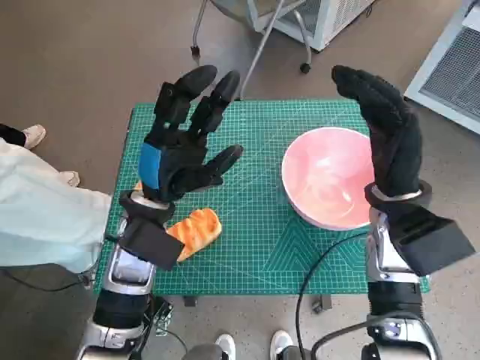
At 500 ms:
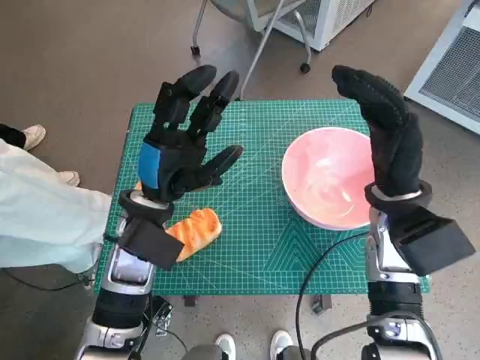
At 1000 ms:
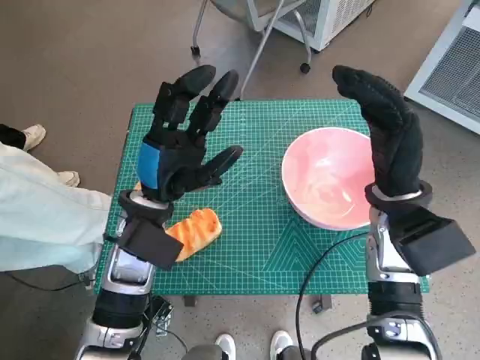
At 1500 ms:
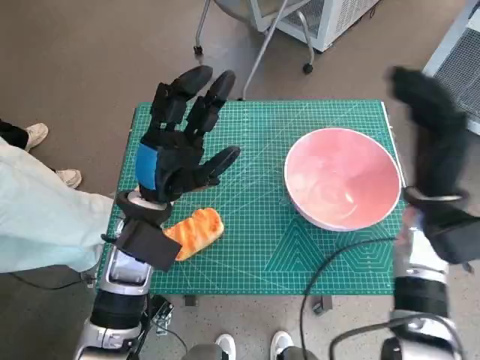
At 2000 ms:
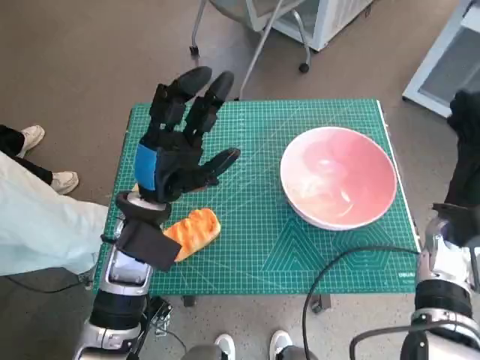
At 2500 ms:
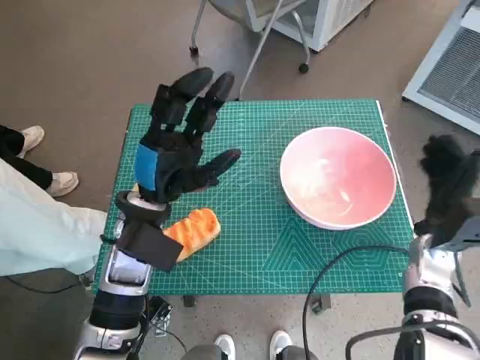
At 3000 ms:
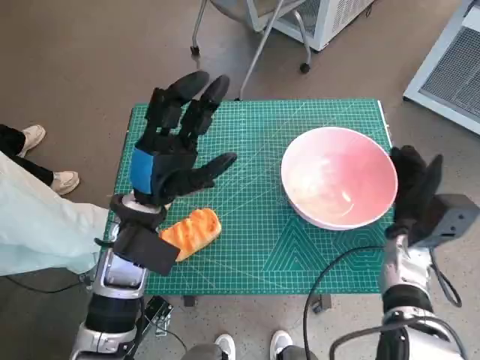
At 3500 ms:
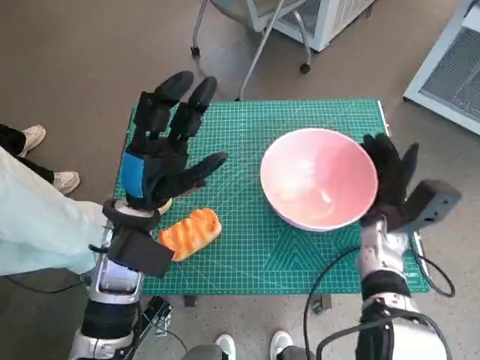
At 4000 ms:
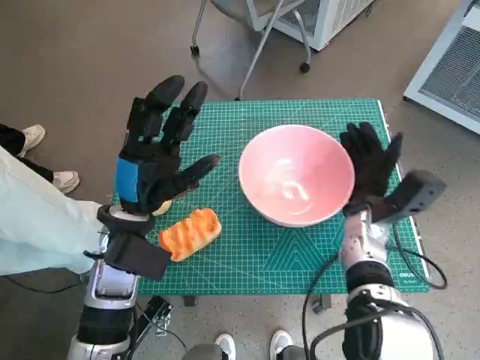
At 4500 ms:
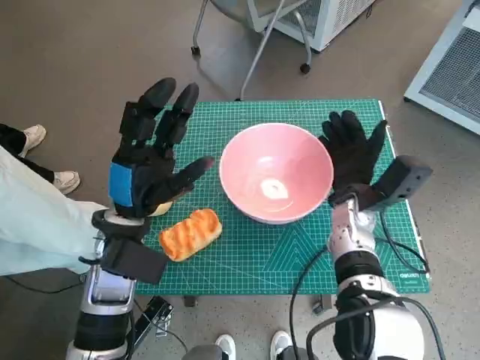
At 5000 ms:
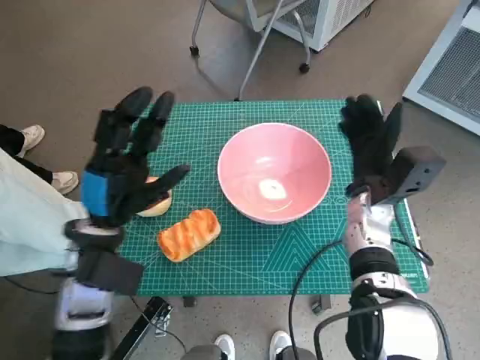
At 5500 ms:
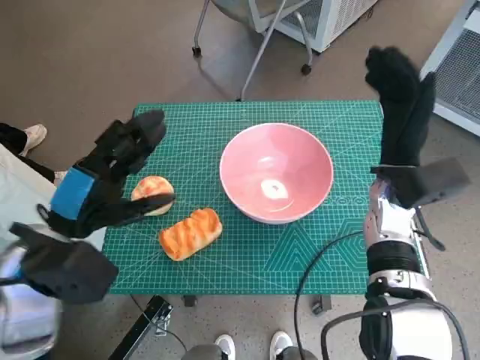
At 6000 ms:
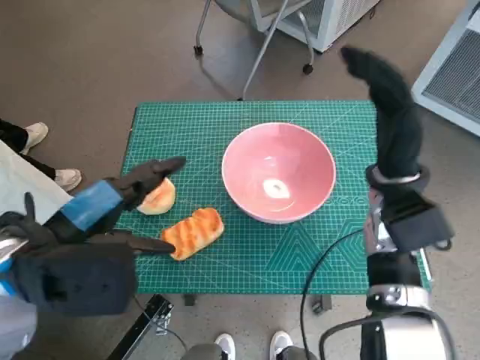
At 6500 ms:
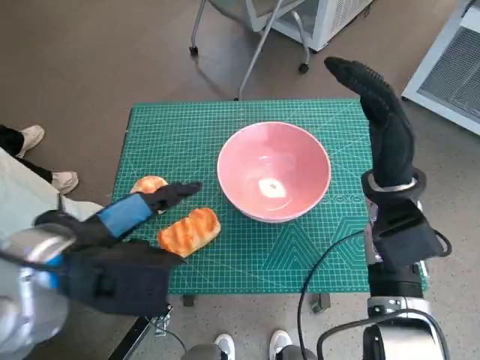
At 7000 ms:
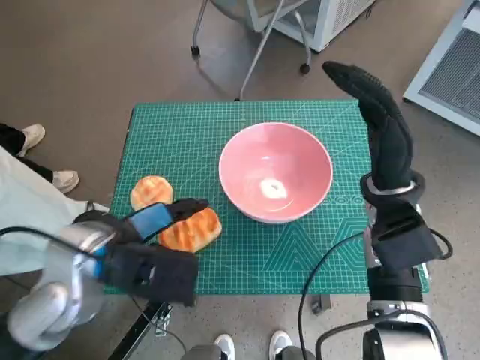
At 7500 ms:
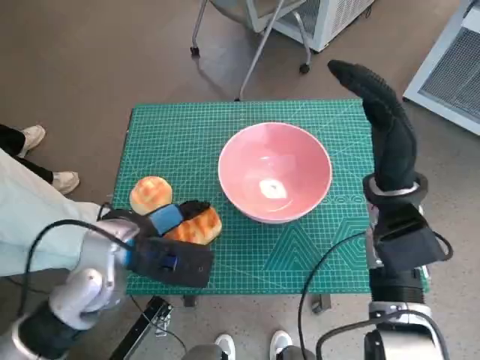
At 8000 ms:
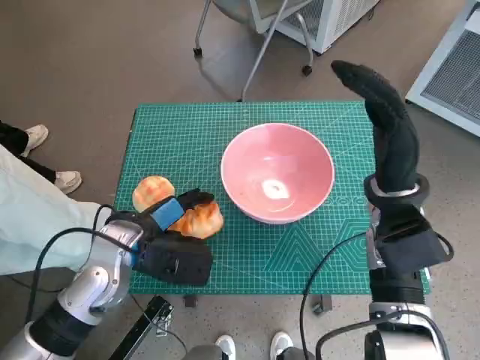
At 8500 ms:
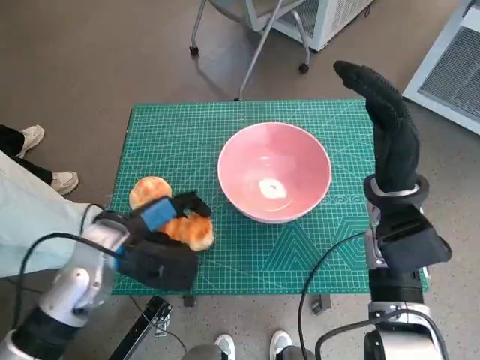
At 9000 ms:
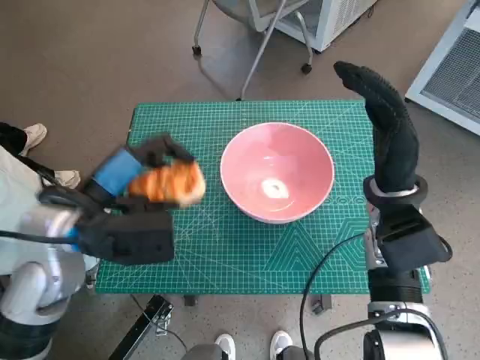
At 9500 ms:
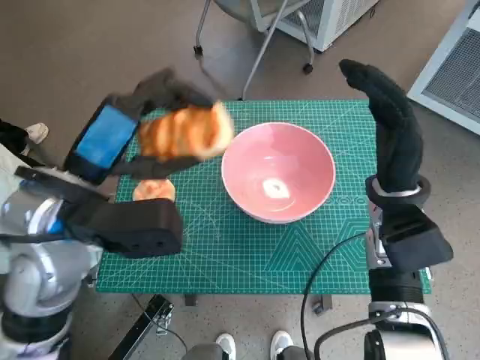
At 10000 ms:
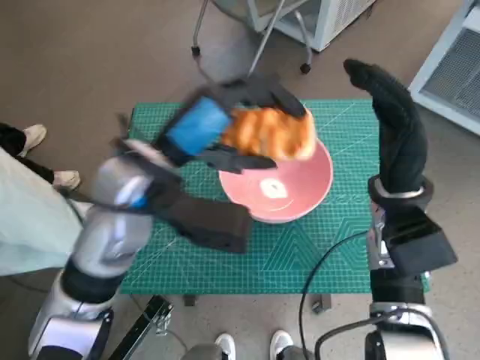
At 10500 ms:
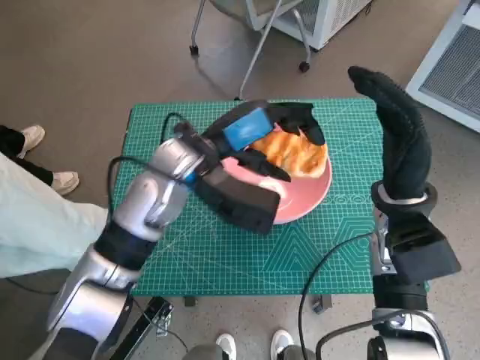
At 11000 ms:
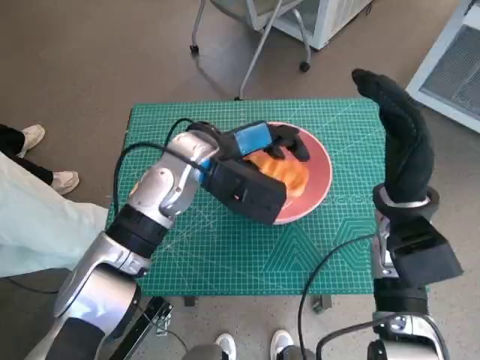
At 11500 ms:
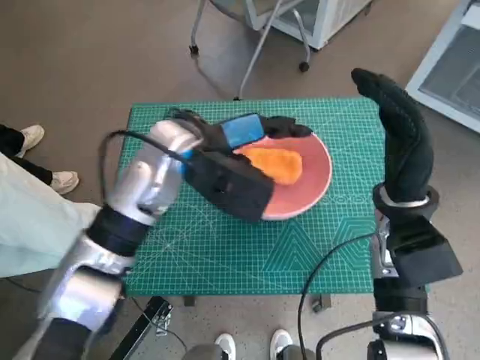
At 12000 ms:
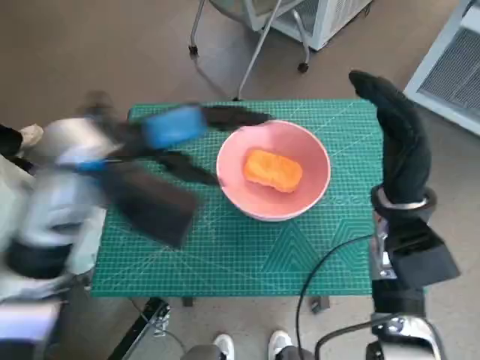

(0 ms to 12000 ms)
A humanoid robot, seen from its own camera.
Task of the whole recording: Push the bowl to the center of the table and put the bread into the bowl.
Step, 0 ms - 4500 ms: Move the pink bowl to the center of table with right hand.
Step, 5000 ms - 7500 ms: Grasp the long bread with left hand.
Step, 8000 ms - 11000 ms: Place the long bread in pink bowl with left hand.
2000 ms - 4000 ms: The right hand heads to the left and downward, covering about 10 cm.
4000 ms - 6000 ms: The right hand moves upward, about 10 cm; the left hand moves upward and backward, about 10 cm.
6000 ms - 8000 ms: The left hand shifts about 15 cm downward and forward.
8000 ms - 10000 ms: The left hand moves upward and to the right, approximately 15 cm.
10000 ms - 12000 ms: The left hand travels forward and back again, approximately 10 cm each way.

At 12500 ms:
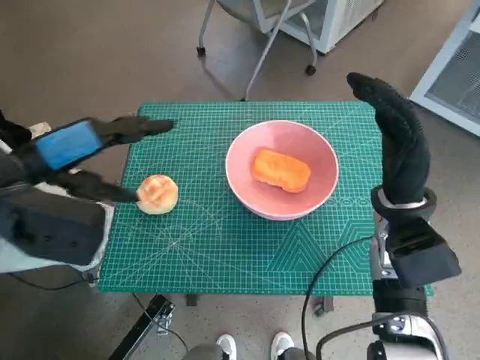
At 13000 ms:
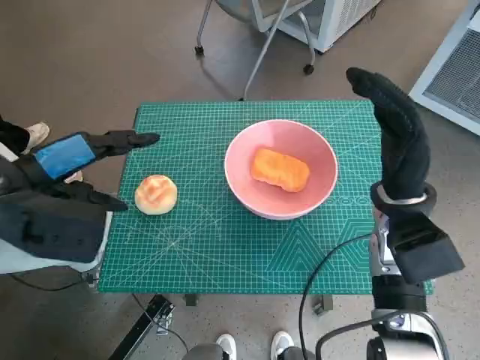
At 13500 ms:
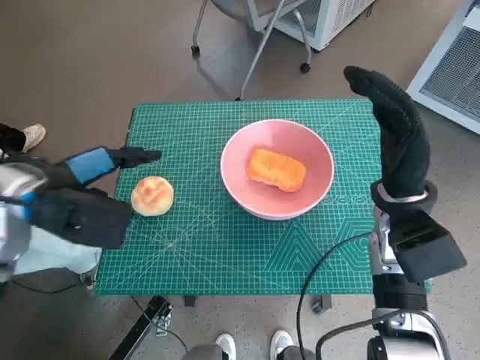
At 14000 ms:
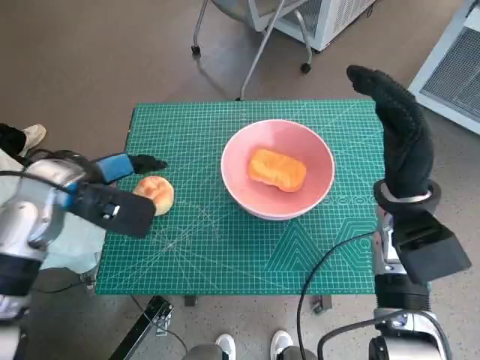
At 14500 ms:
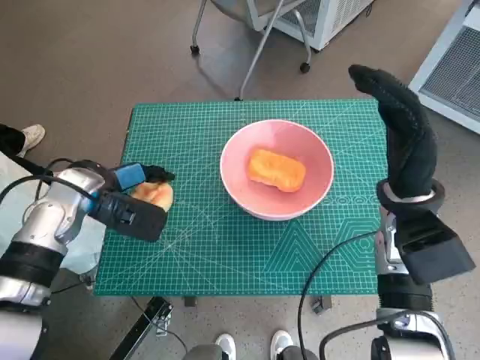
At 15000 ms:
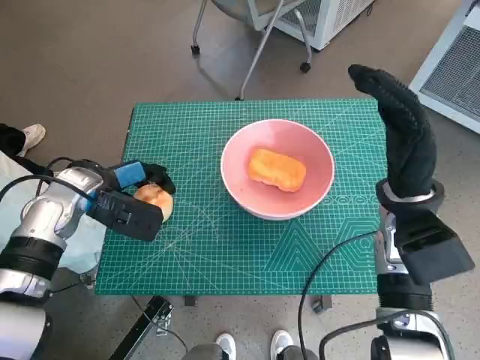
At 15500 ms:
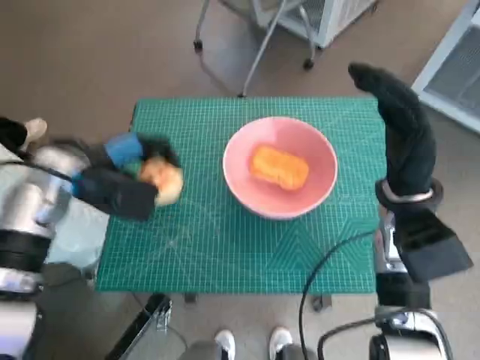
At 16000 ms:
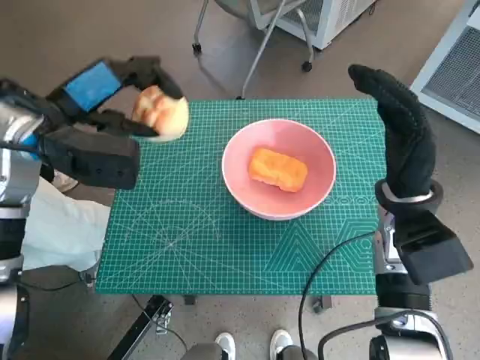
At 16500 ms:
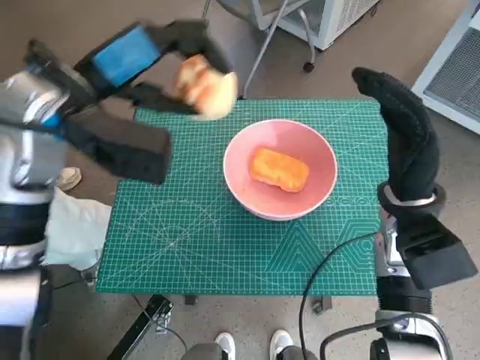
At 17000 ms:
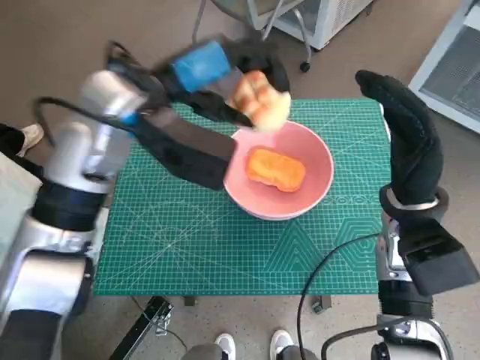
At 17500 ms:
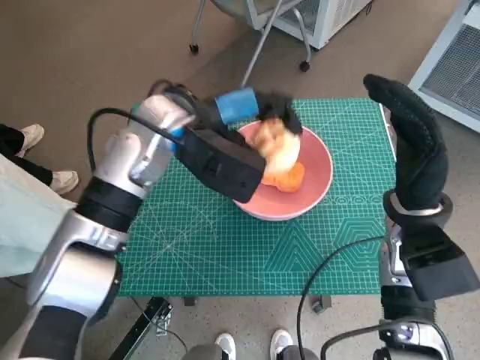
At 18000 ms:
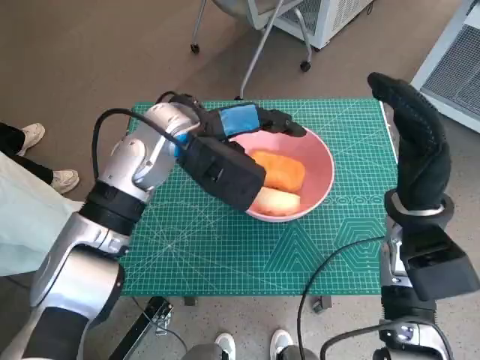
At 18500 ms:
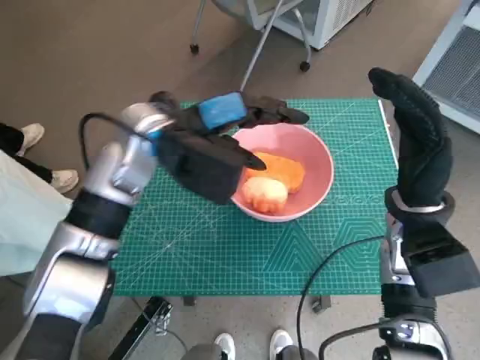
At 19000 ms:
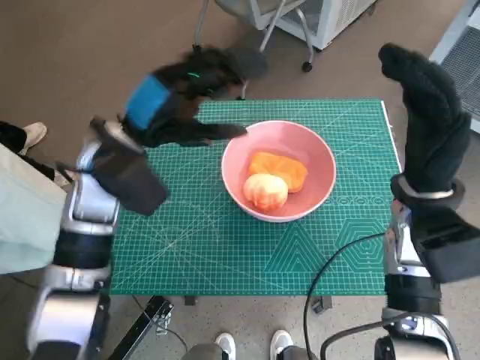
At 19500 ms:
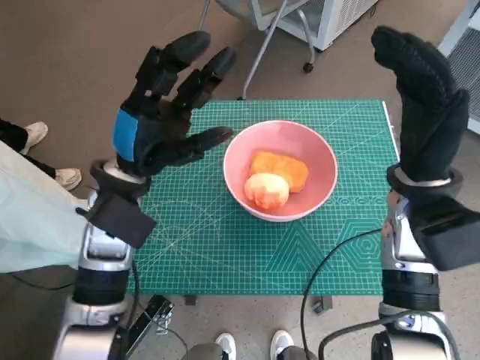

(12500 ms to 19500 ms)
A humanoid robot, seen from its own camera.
Task of the whole recording: Push the bowl to the center of the table and put the bread into the bowl.
Step, 12500 ms - 15000 ms: Grasp the round bread with left hand.
Step, 15500 ms - 18000 ms: Place the round bread in pink bowl with left hand.
12500 ms - 14500 ms: The left hand shifts some 15 cm downward and forward.
14500 ms - 16000 ms: The left hand is displaced upward by roughly 10 cm.
16000 ms - 17500 ms: The left hand shifts about 15 cm to the right.
17500 ms - 19500 ms: The left hand is displaced to the left, backward and downward by approximately 10 cm.

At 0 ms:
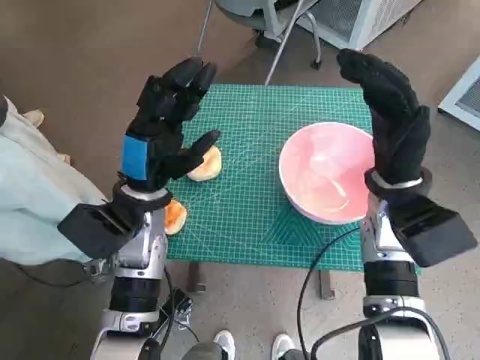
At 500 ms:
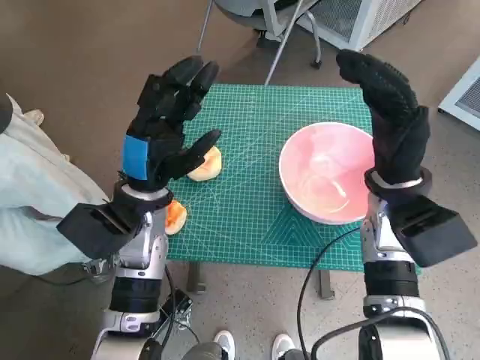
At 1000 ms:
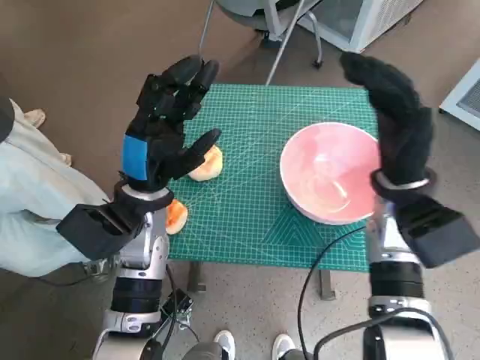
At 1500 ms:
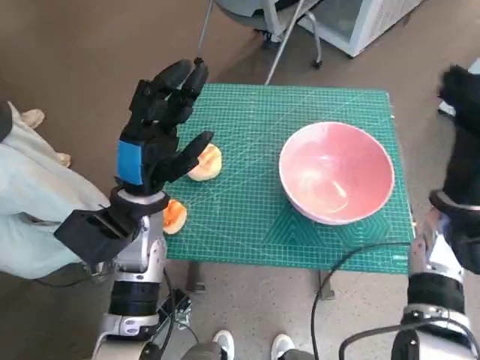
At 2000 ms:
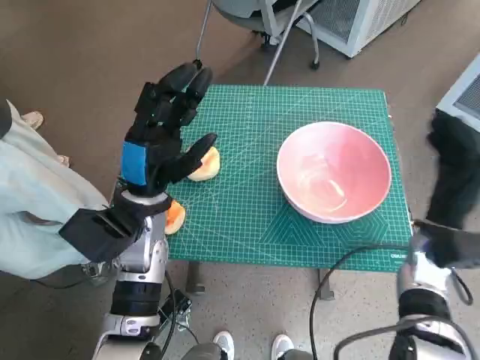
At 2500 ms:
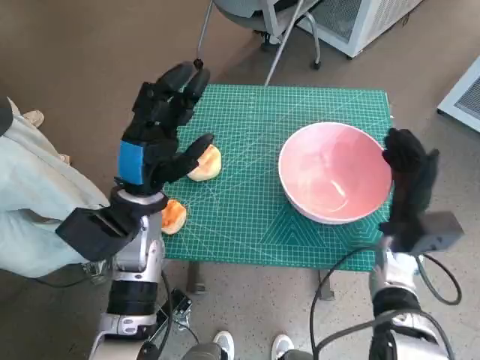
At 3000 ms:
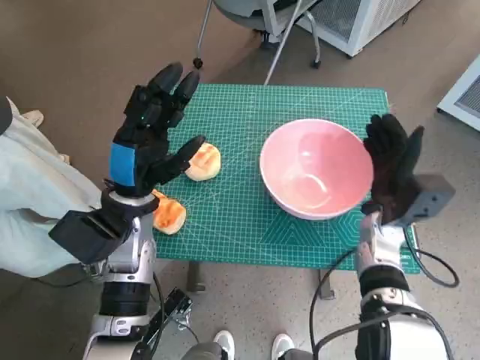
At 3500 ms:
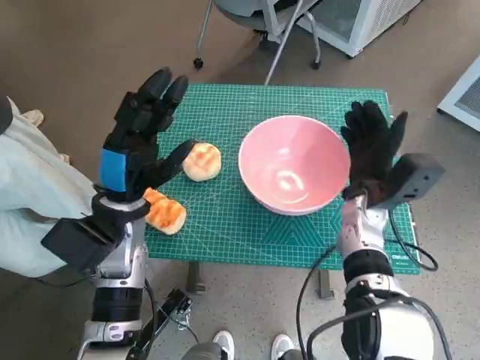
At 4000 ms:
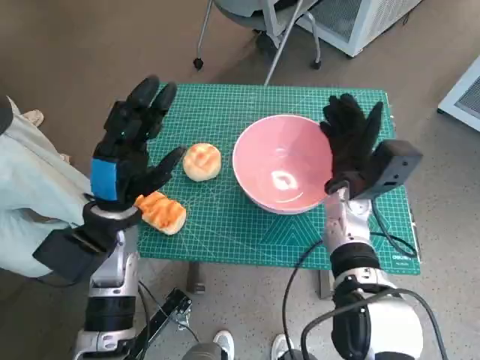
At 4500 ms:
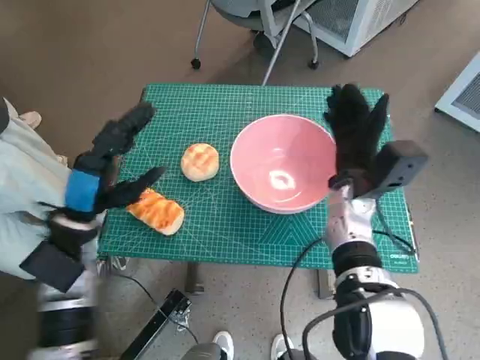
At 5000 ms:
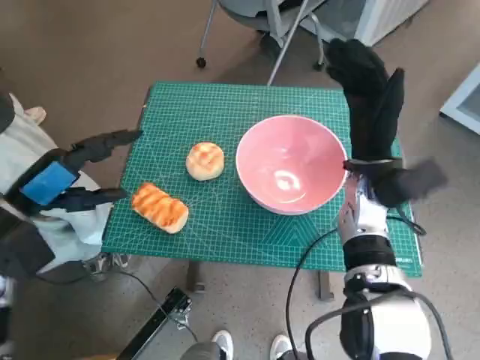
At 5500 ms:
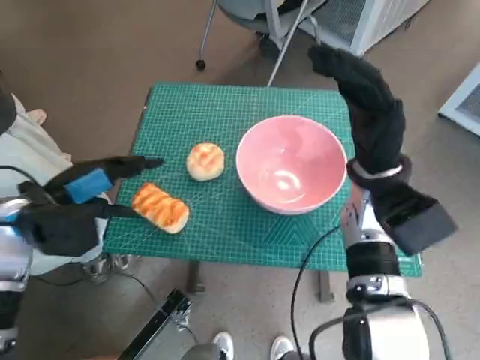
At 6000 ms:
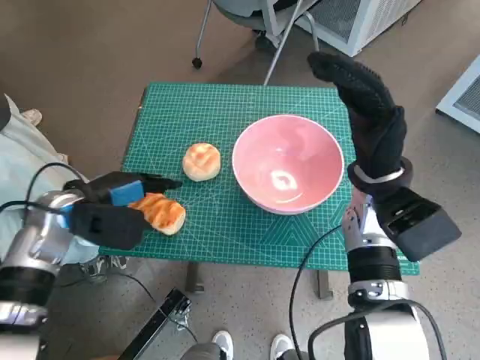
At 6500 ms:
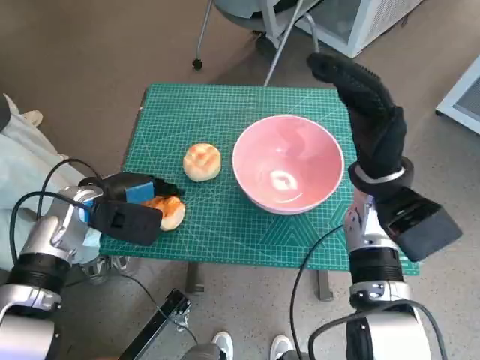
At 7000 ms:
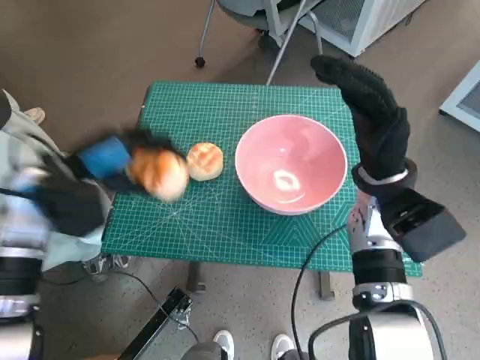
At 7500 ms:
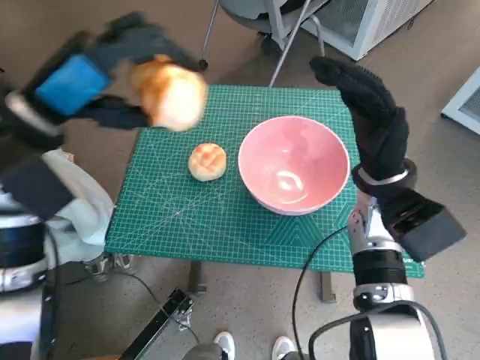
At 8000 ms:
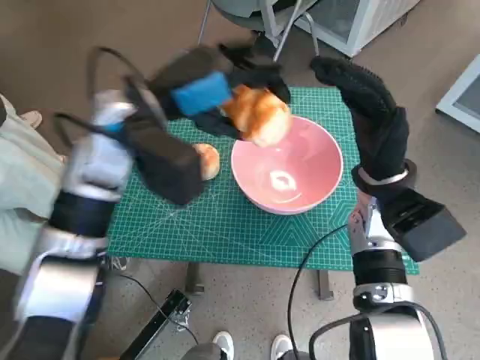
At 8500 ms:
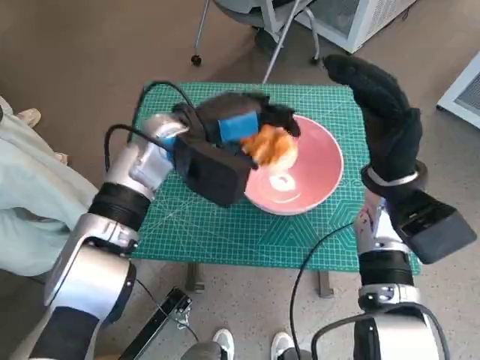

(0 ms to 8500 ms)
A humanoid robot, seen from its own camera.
Task of the whole recording: Push the bowl to the center of the table and put the bread into the bowl.
Step, 0 ms - 4500 ms: Move the pink bowl to the center of table with right hand.
Step, 5000 ms - 6500 ms: Grasp the long bread with left hand.
2000 ms - 4000 ms: The right hand travels to the left and forward by about 15 cm.
4000 ms - 6500 ms: The left hand moves to the left, some 5 cm. The right hand shifts roughly 5 cm upward.
6500 ms - 8500 ms: The left hand goes approximately 15 cm to the right and upward.
